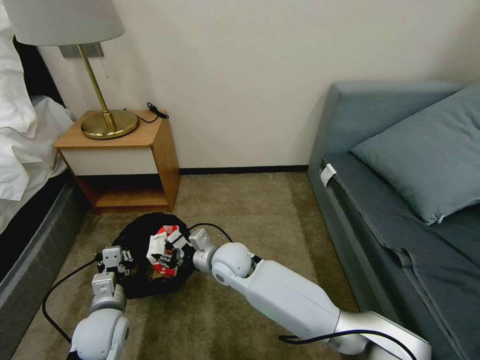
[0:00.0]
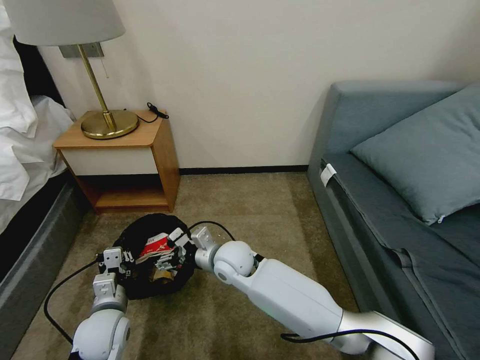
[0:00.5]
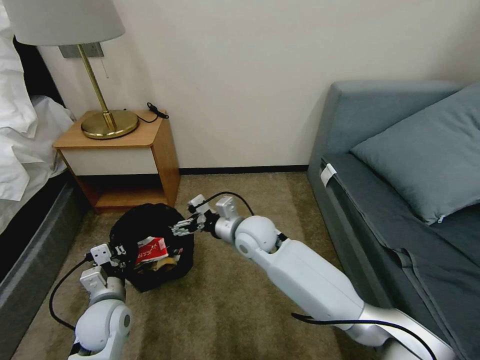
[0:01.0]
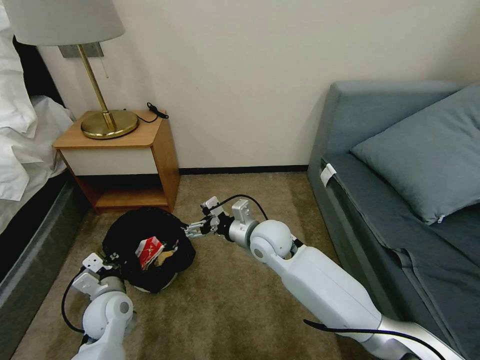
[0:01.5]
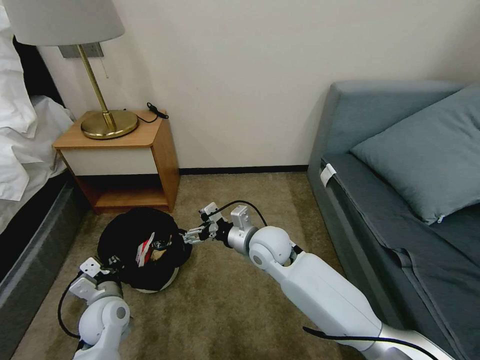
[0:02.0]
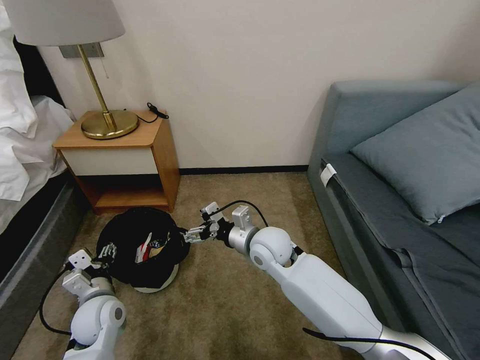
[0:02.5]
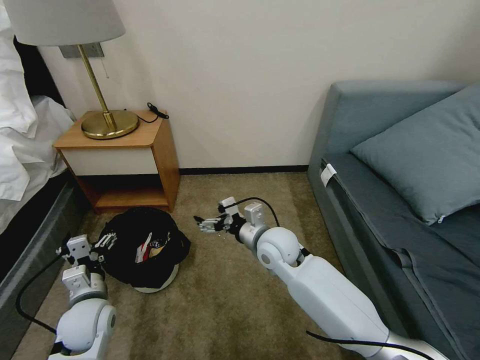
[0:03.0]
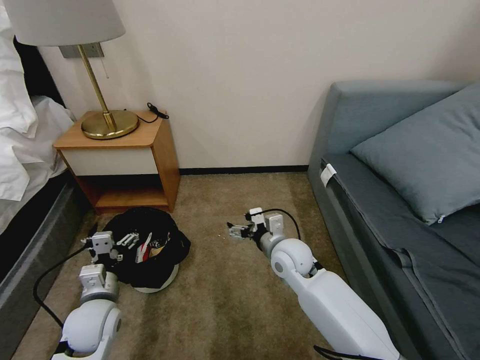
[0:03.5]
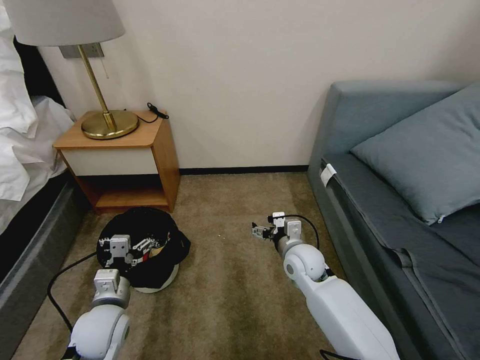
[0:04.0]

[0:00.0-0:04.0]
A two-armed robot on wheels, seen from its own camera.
Task of the whole recording: Pick up the trash bin, then pick up the garbage on the floor and place it into the trash bin.
0:00.0 to 0:02.0: The right gripper heads to the right, covering roughly 10 cm, and opens its fingers.
0:02.0 to 0:04.0: The right gripper shifts about 10 cm to the right and downward; the left gripper changes place by some 5 cm, and opens.

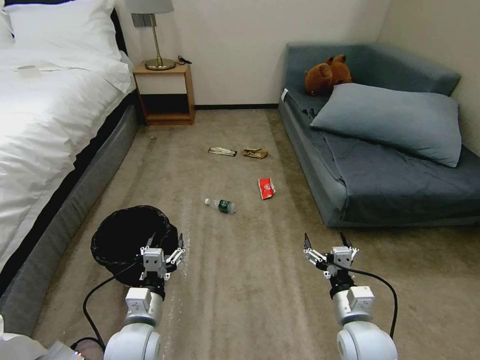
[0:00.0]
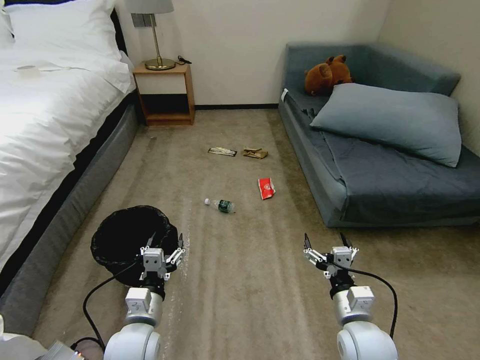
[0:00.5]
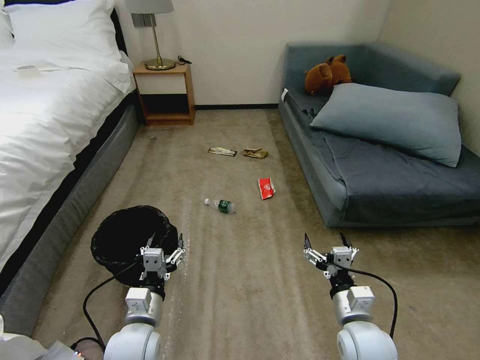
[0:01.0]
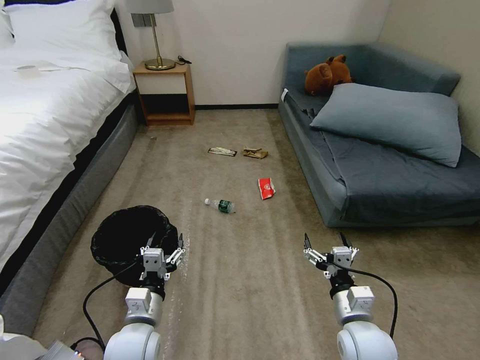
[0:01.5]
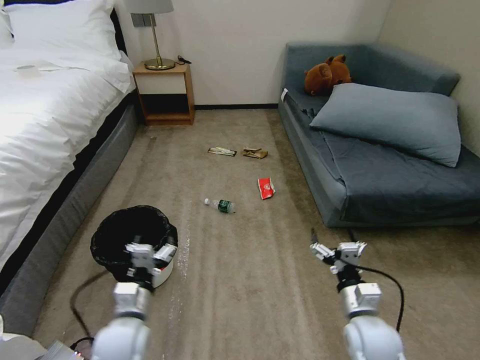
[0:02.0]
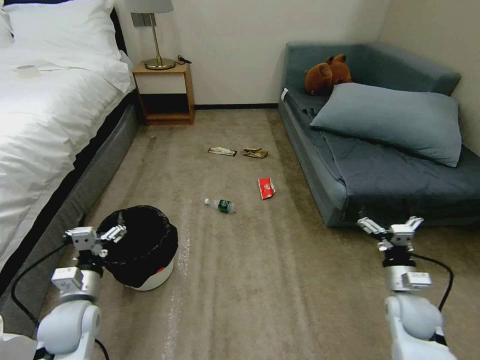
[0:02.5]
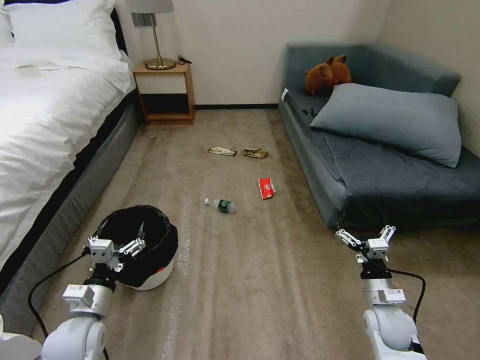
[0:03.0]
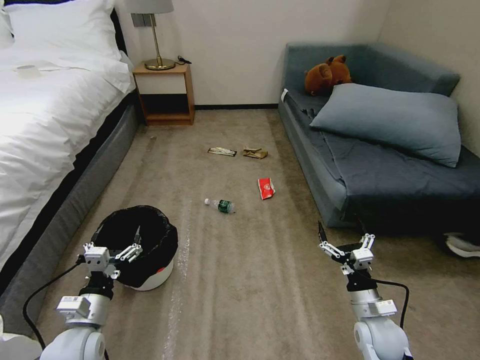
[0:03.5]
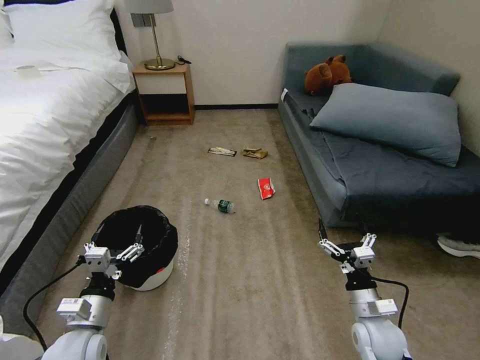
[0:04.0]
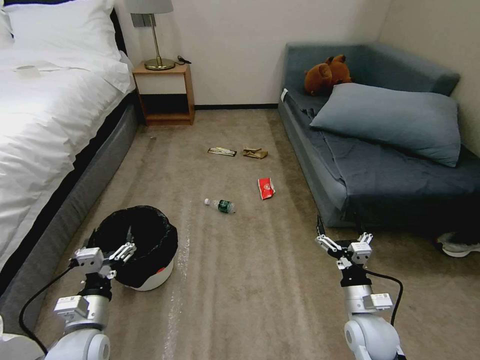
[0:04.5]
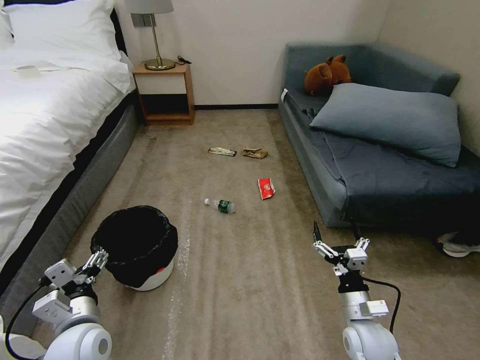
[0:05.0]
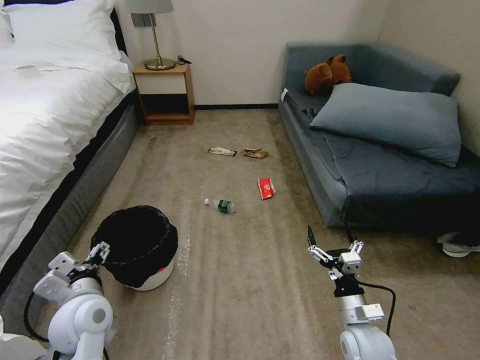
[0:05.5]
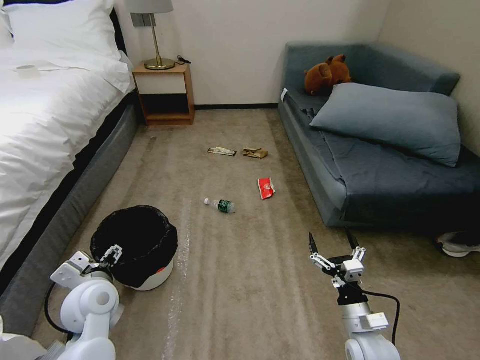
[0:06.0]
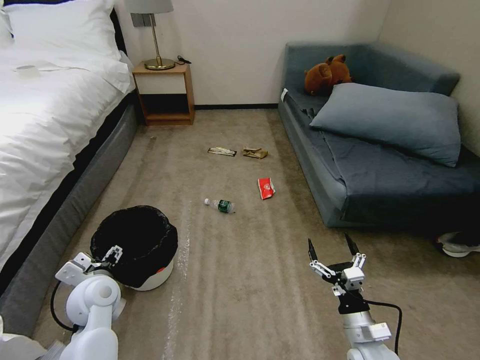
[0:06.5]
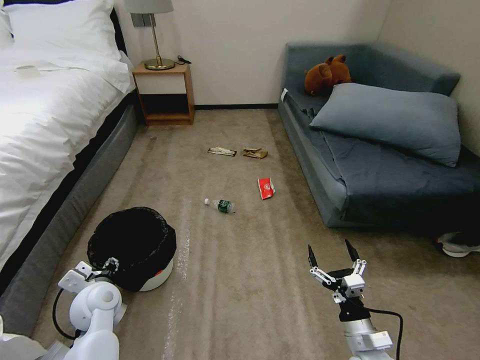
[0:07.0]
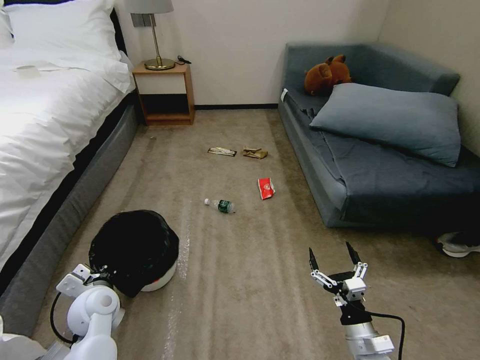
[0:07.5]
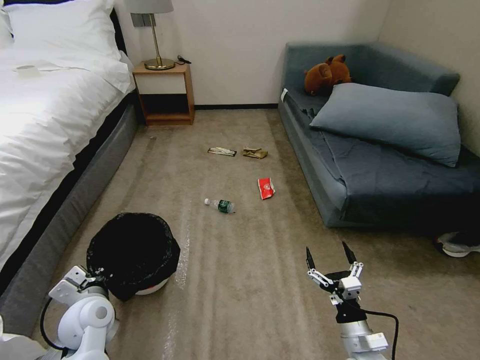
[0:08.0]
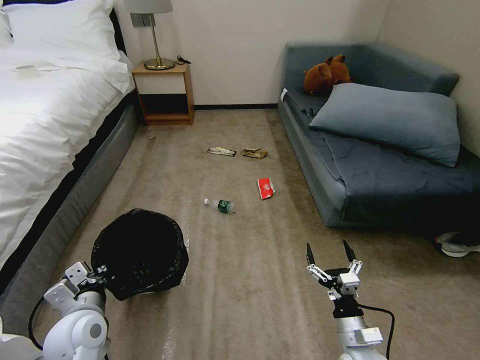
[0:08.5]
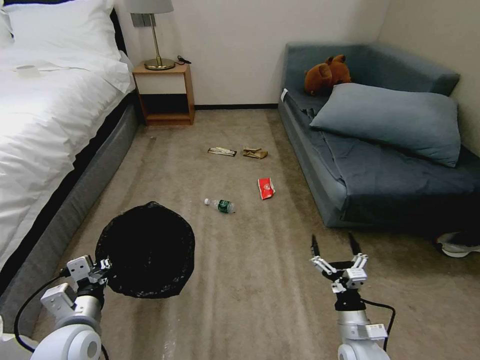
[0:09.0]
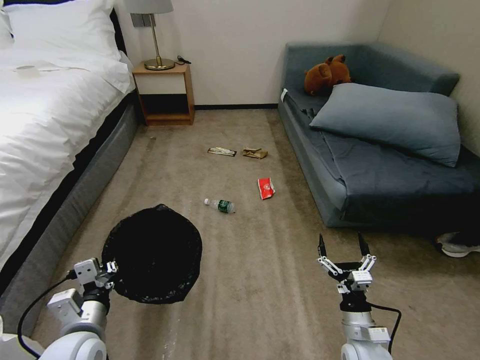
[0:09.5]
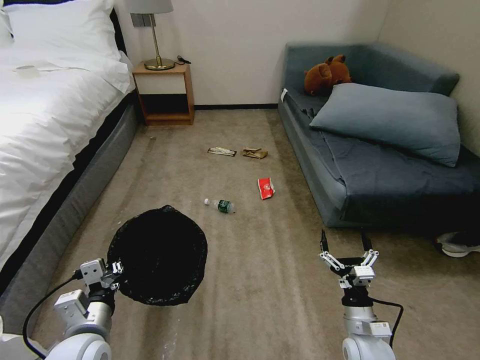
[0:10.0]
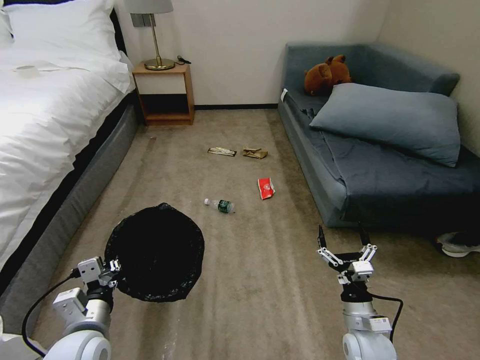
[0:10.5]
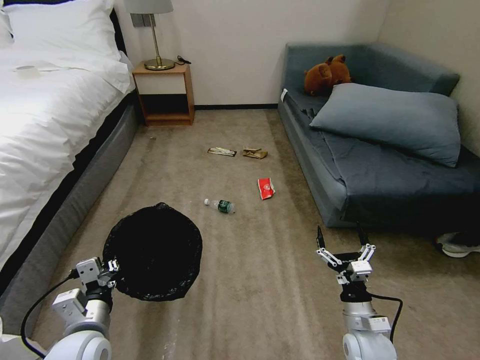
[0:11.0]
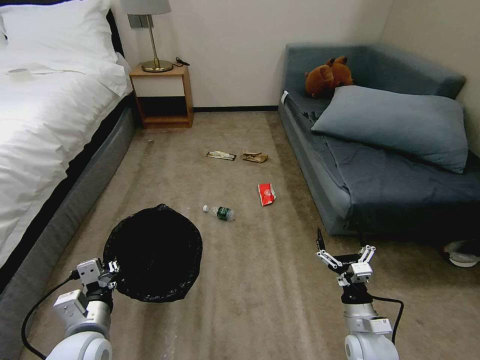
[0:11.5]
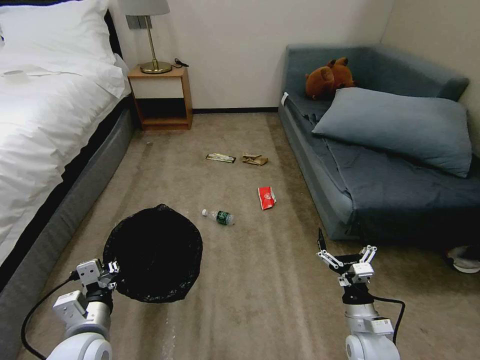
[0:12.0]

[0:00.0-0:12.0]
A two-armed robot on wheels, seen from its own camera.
Task of the whole recording: Pick up the trash bin, then pick up the garbage on the floor and place it into the trash bin.
0:02.0 to 0:04.0: The left gripper shifts approximately 10 cm to the left. The right gripper reaches approximately 15 cm to the right, then returns.
0:04.0 to 0:06.0: The left gripper shifts roughly 10 cm forward and upward.
0:06.0 to 0:08.0: The left gripper ends up some 5 cm from where it was, and closes its fingers.
0:08.0 to 0:10.0: The left gripper heads backward, covering some 10 cm.
0:10.0 to 0:12.0: Neither gripper changes place.

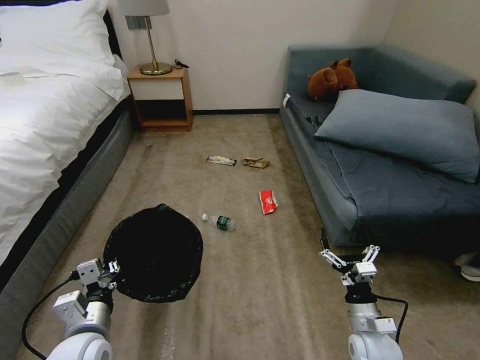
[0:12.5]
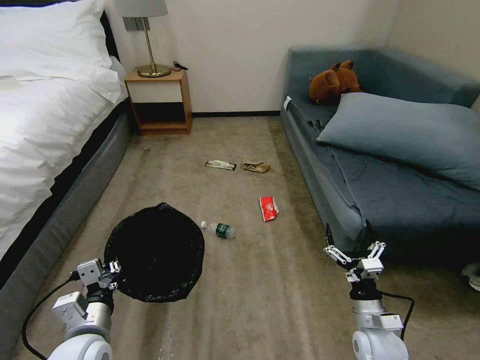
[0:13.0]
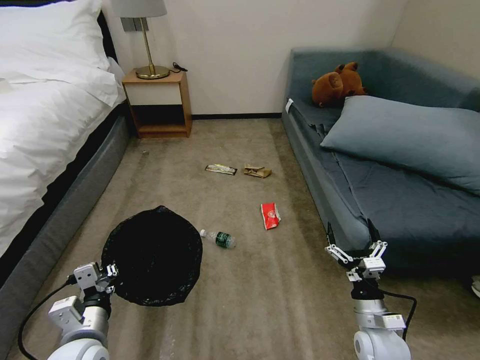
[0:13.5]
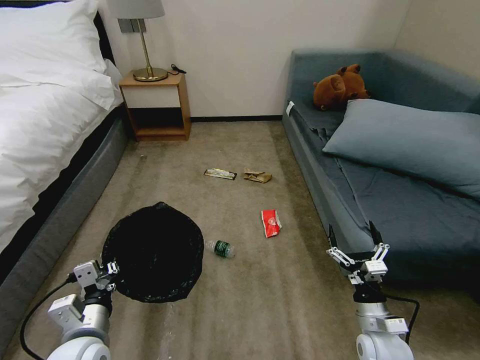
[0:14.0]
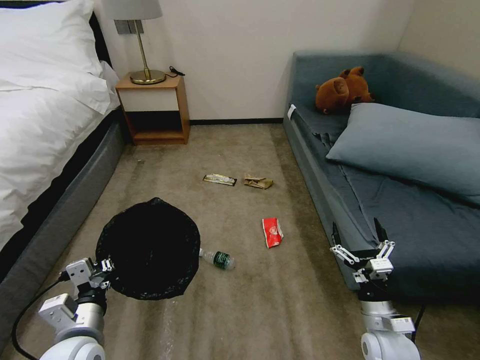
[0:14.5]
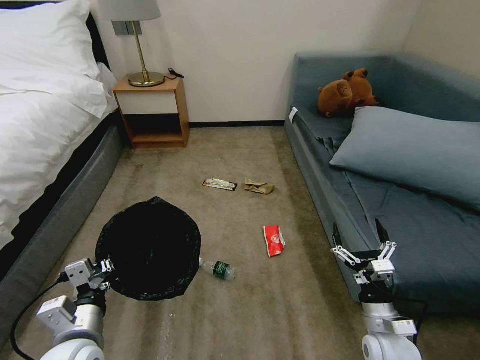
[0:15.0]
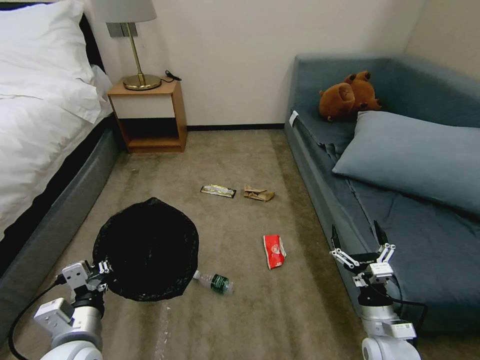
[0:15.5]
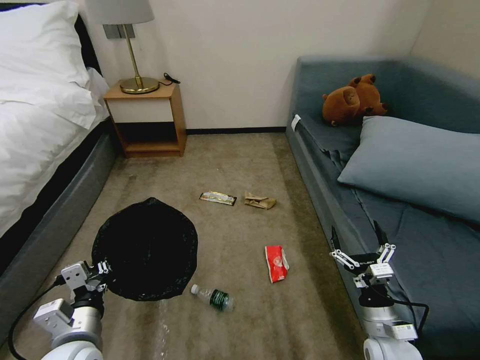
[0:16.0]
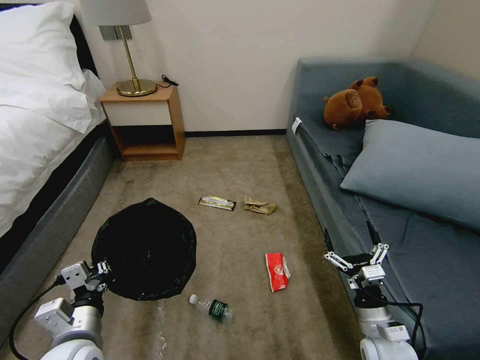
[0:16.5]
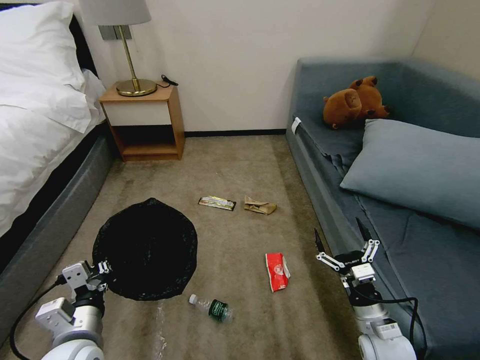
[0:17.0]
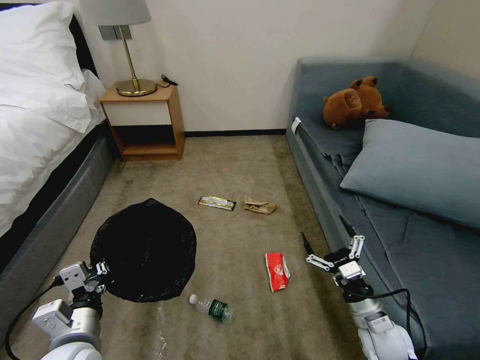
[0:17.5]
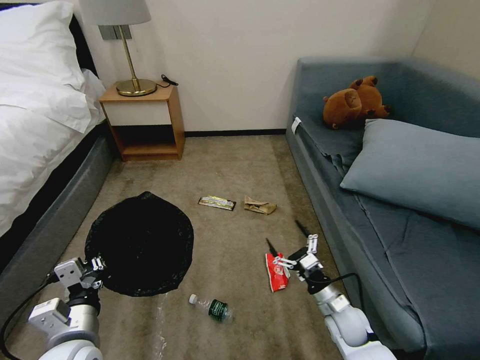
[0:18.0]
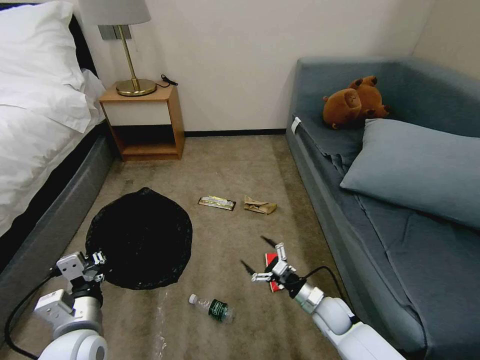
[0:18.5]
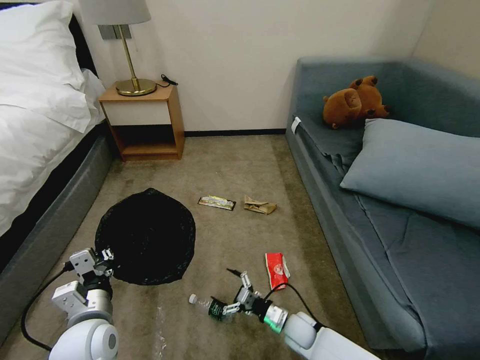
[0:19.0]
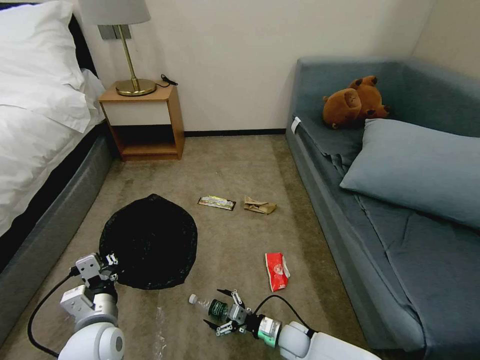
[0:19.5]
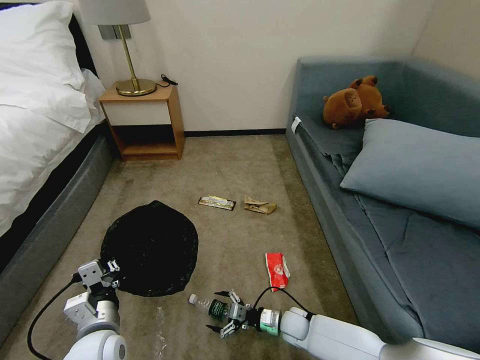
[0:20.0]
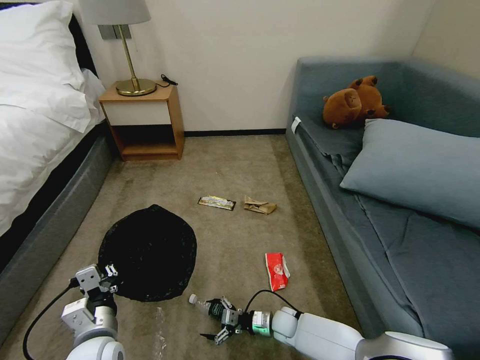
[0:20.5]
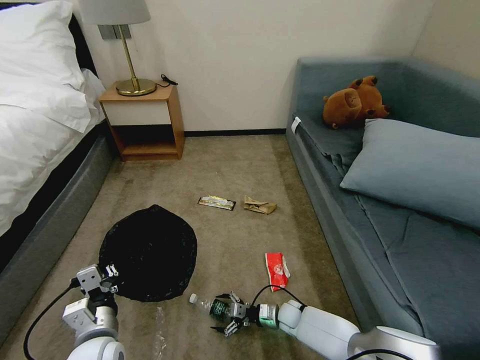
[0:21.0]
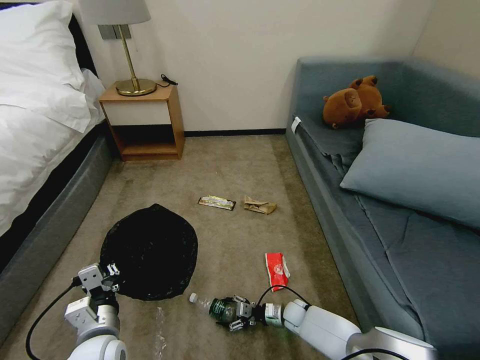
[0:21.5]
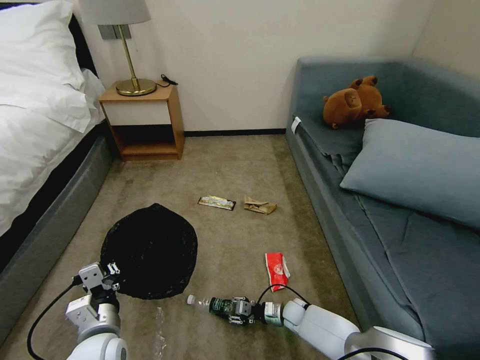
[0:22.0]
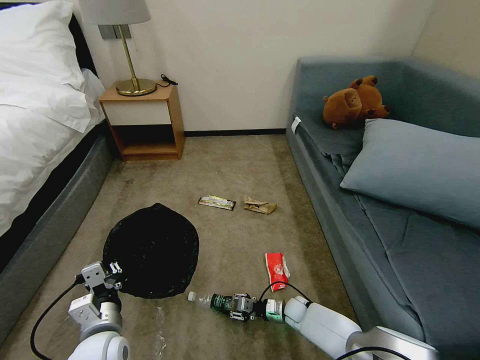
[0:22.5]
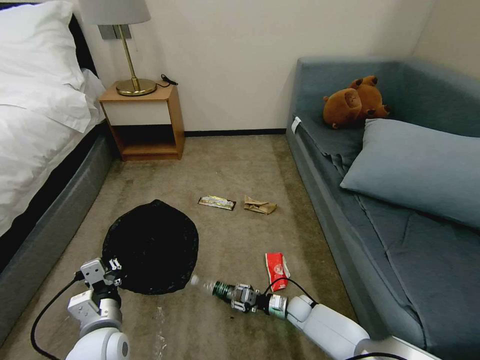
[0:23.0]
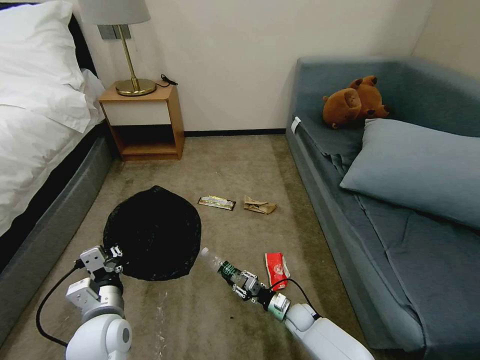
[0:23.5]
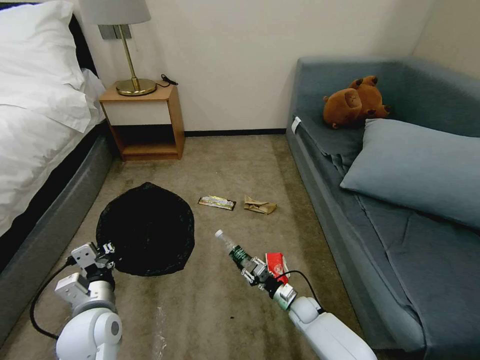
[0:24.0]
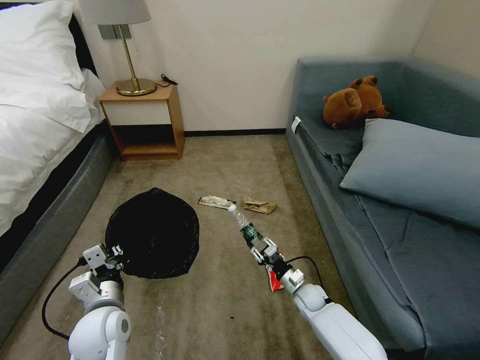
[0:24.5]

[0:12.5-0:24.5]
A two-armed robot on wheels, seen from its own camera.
Task of the whole recording: Pick up the trash bin, then pick up the garbage on the floor and place it into the trash bin.
0:16.5 to 0:18.5: The right gripper shifts some 15 cm forward, downward and to the left.
0:18.5 to 0:20.5: The right gripper moves downward and to the left, about 15 cm.
0:20.5 to 0:22.5: The right gripper changes place by roughly 5 cm, and closes up.
0:22.5 to 0:24.5: The right gripper is displaced upward by roughly 10 cm.
